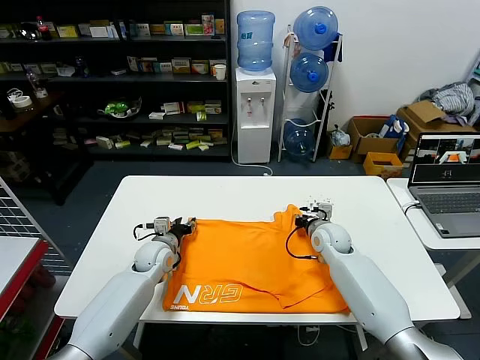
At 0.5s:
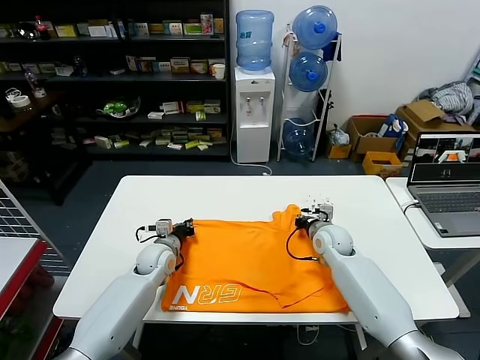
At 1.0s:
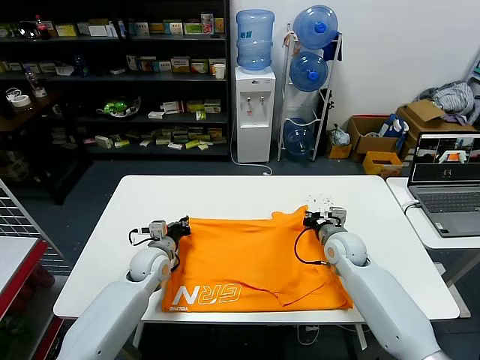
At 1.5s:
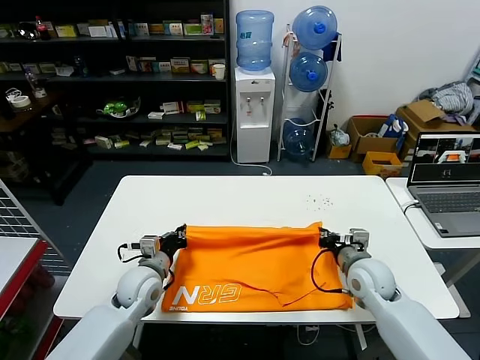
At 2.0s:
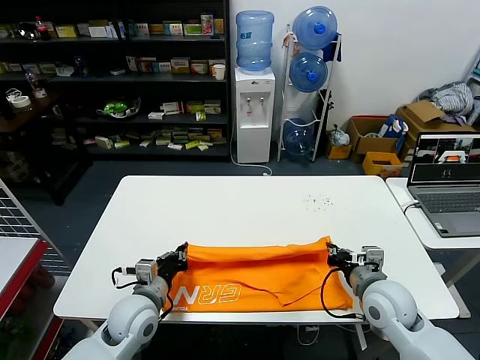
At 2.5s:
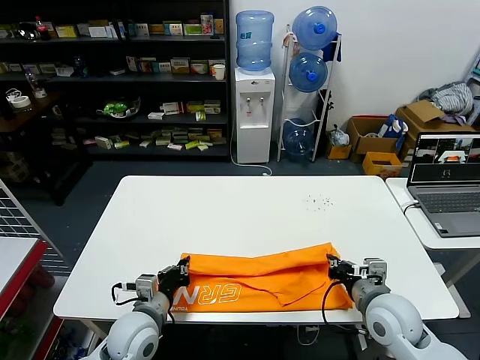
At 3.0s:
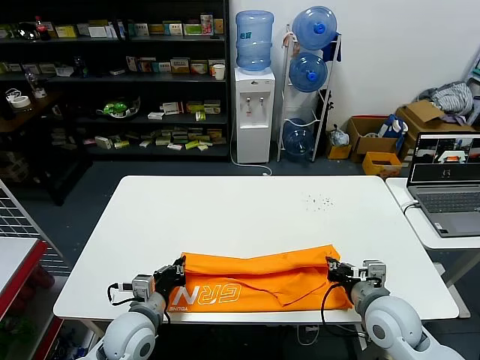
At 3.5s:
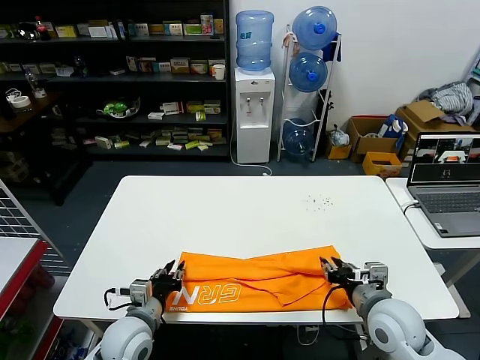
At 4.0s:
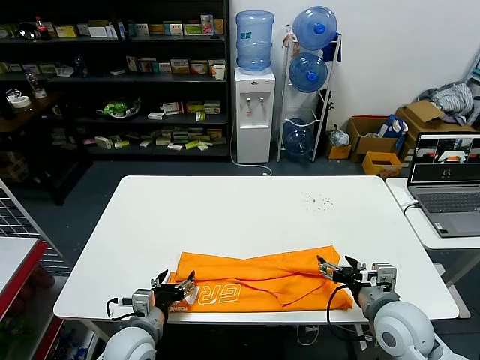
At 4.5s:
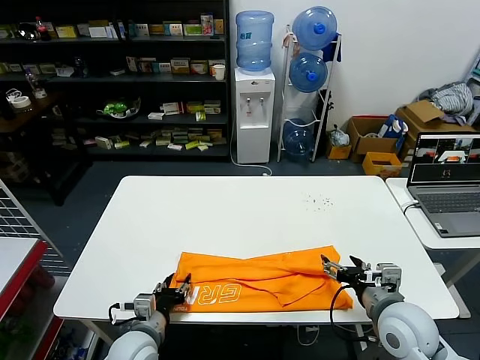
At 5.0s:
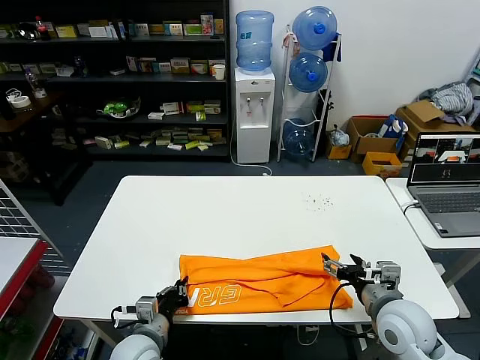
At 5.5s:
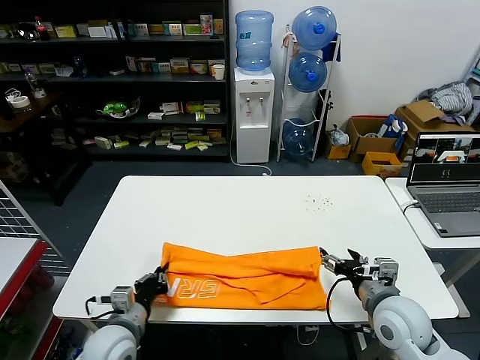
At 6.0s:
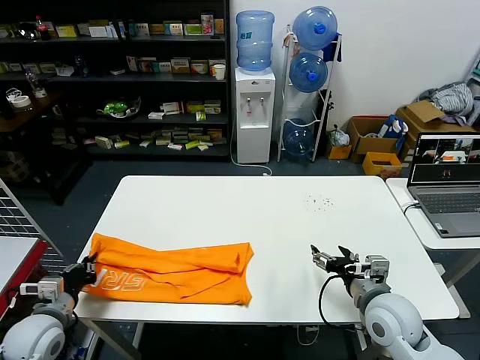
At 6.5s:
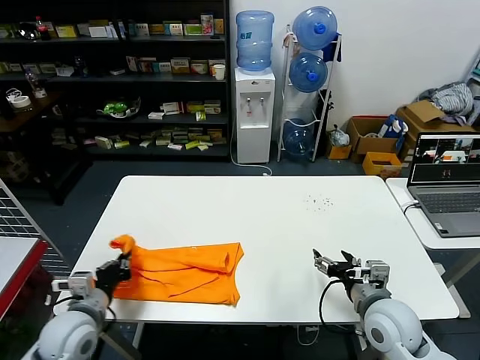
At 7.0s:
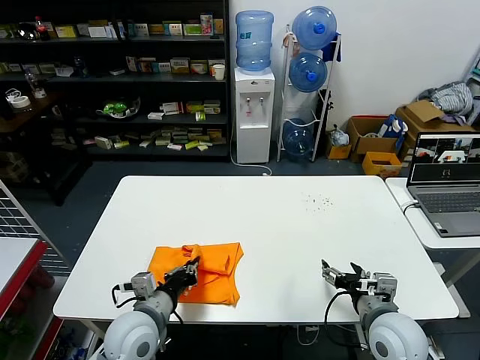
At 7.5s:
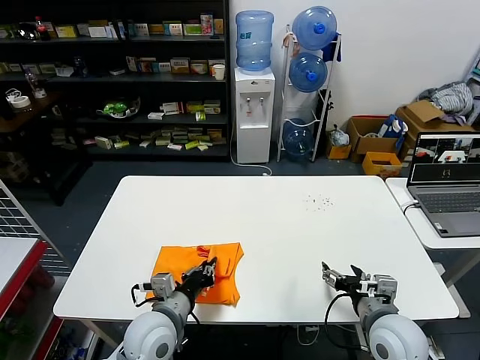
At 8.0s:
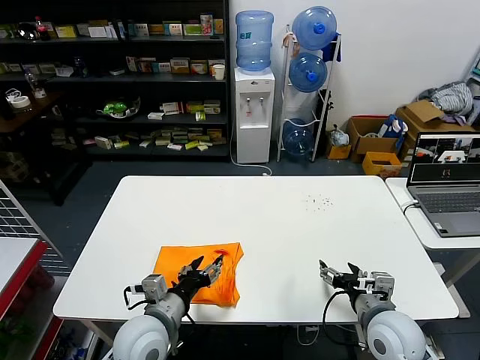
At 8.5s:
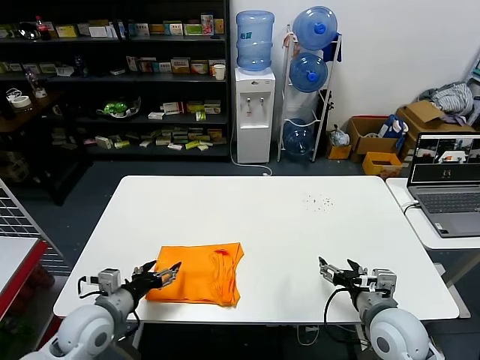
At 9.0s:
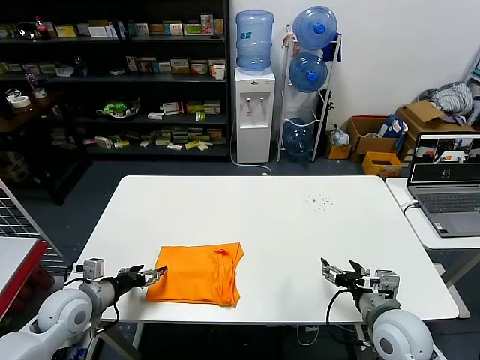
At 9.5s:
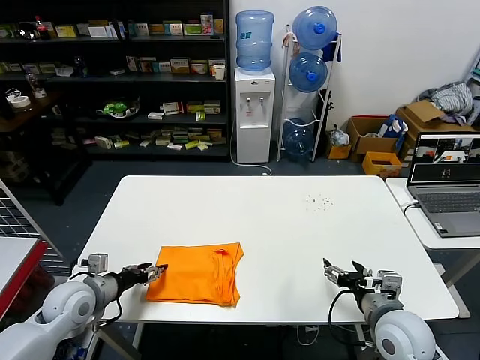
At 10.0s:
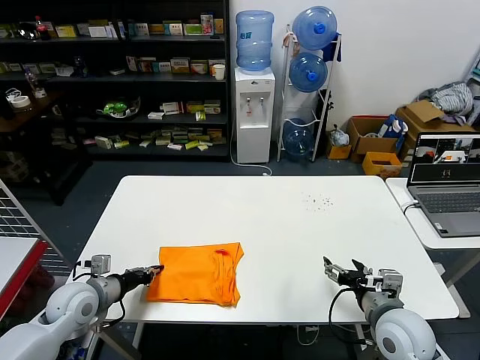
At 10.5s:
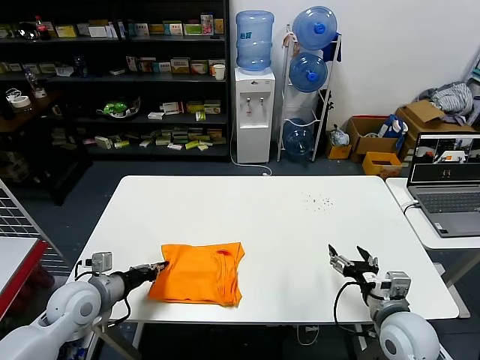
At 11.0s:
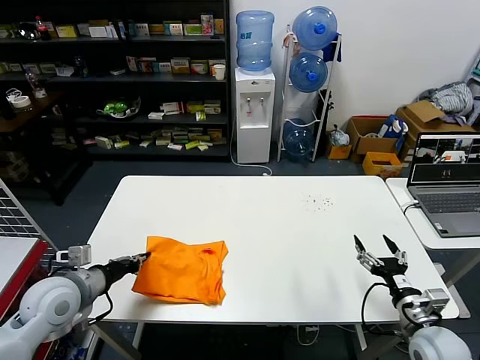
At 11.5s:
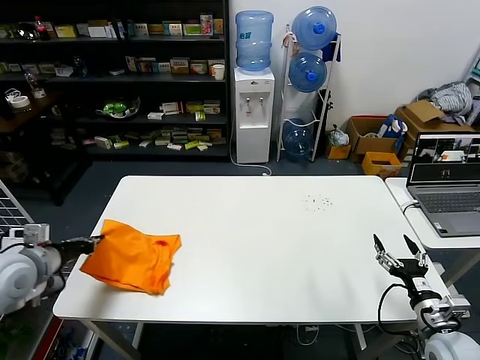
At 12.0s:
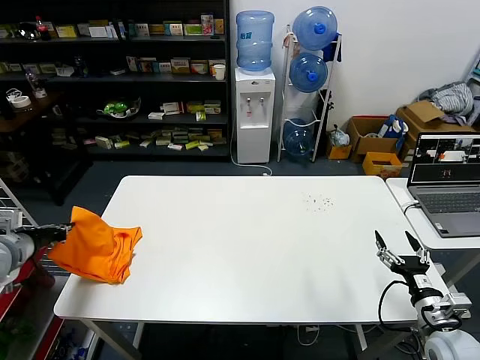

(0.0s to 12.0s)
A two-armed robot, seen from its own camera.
Task of the whole recording: fold and organize the clothes.
Step, 1.0s - 3.5s: use both grippers to drag the upper edge of the fabric backward and fold it over the lower edge.
Step, 4.0s - 5.0s: use the left gripper to clamp the left edge of the fabric.
Step, 5.5s - 7.5s: use the left gripper to drag the left edge of the fabric to the left and folds it over the right edge.
0.0s - 2.0s: The grippers both shift backward by about 20 cm. The left gripper closes up.
2.0s - 4.0s: The left gripper goes about 5 cm backward, and opens its fingers. The right gripper opens its fingers.
4.0s - 6.0s: The left gripper is displaced to the left by about 15 cm, and closes its fingers.
6.0s - 8.0s: The left gripper travels to the right by about 20 cm, and opens its fingers.
8.0s - 10.0s: The left gripper goes about 20 cm to the left, and closes its fingers.
10.0s - 12.0s: The left gripper heads upward and to the left, covering about 20 cm. Meanwhile the right gripper is displaced to the right and downward by some 15 cm.

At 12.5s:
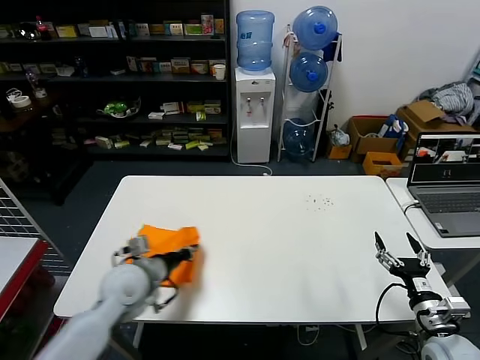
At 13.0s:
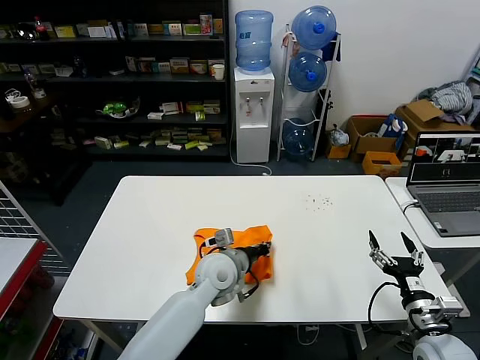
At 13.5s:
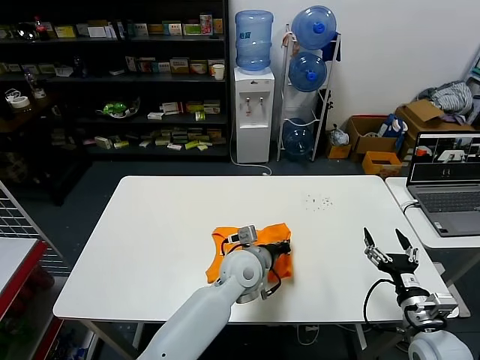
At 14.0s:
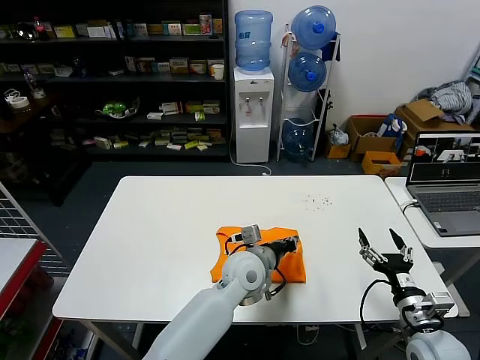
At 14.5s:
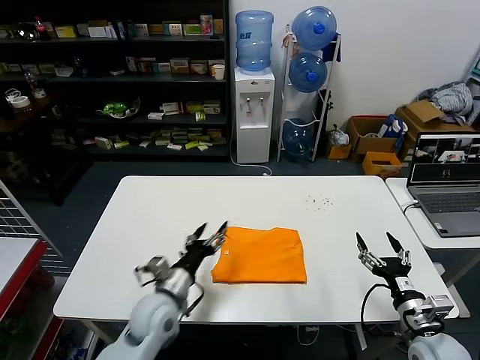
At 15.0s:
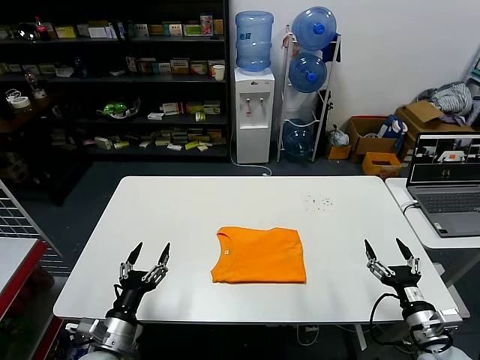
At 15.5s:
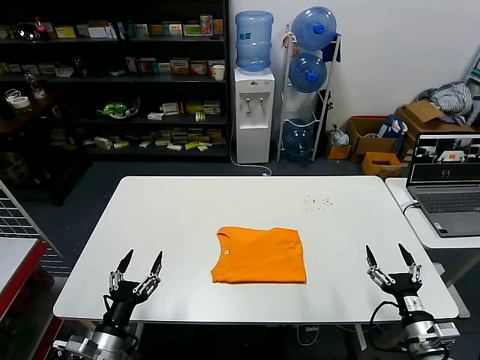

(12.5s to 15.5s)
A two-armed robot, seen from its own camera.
Task of the whole recording: fold and organize the clothes.
12.5s - 14.0s: The left gripper shifts some 30 cm to the right.
14.0s - 15.5s: The right gripper changes place by about 5 cm; the left gripper goes roughly 35 cm to the left and backward, and opens.

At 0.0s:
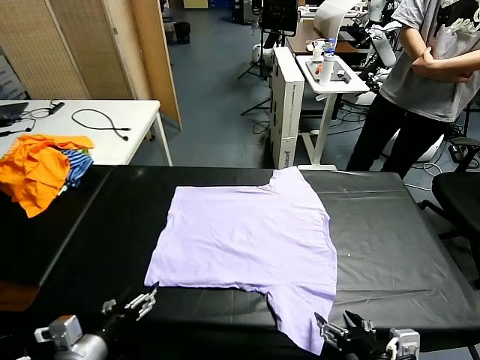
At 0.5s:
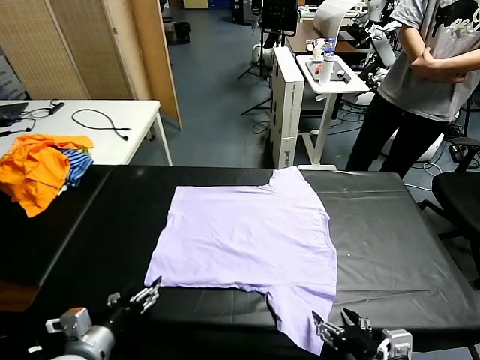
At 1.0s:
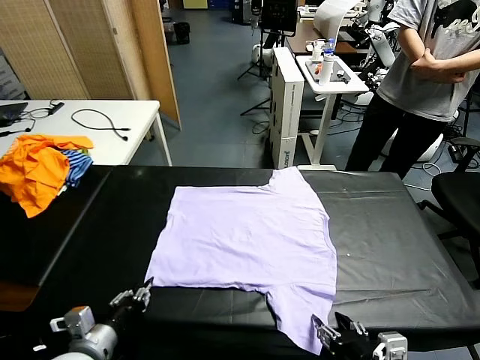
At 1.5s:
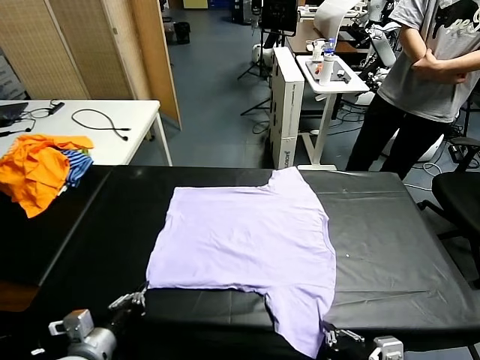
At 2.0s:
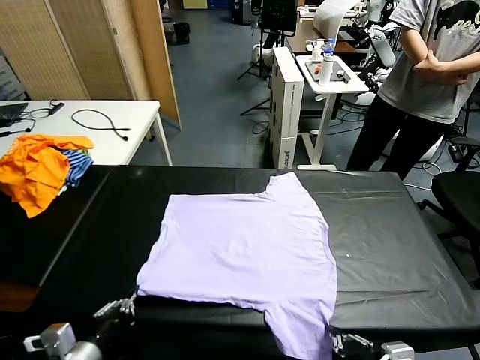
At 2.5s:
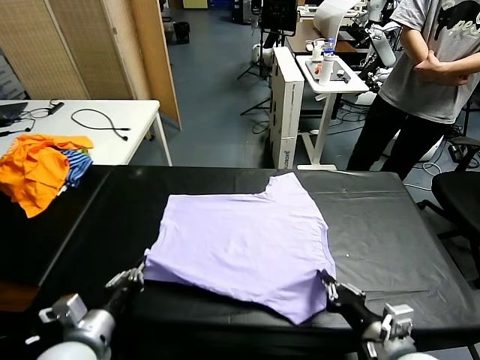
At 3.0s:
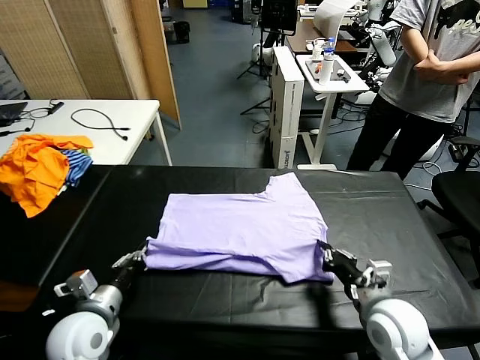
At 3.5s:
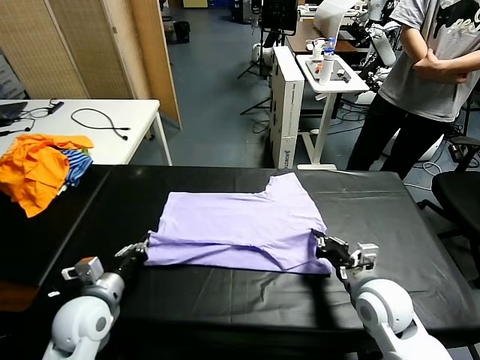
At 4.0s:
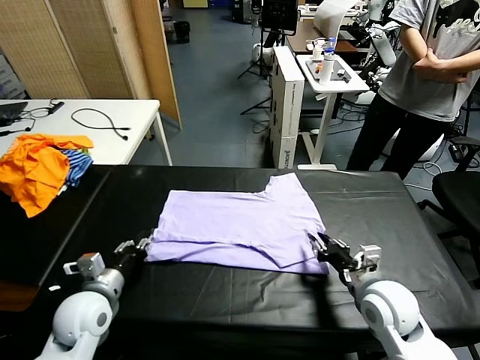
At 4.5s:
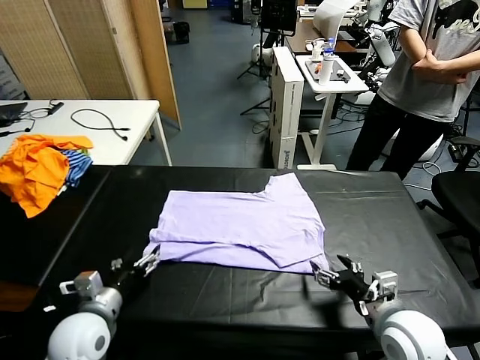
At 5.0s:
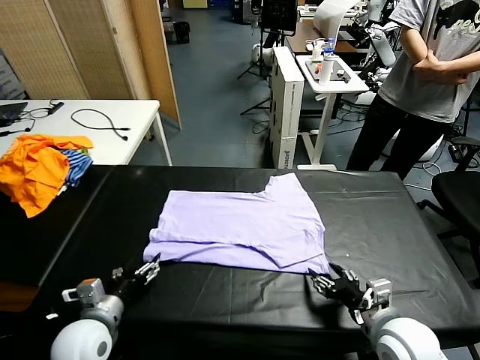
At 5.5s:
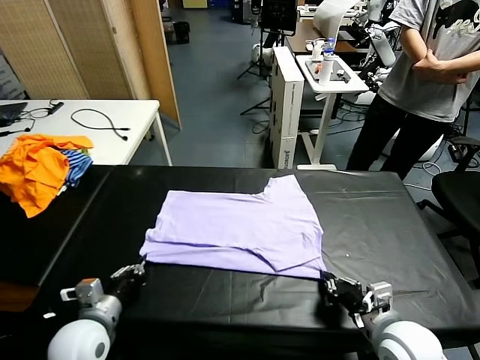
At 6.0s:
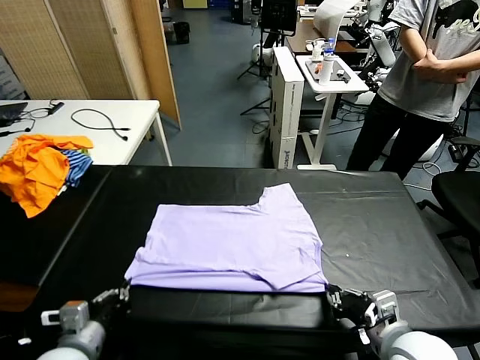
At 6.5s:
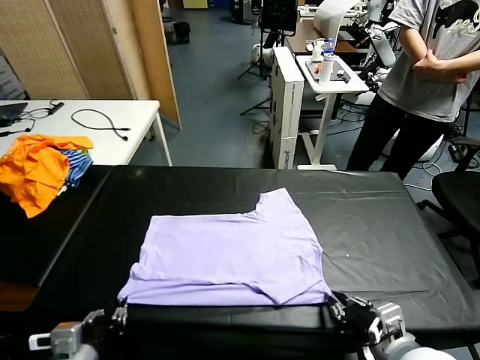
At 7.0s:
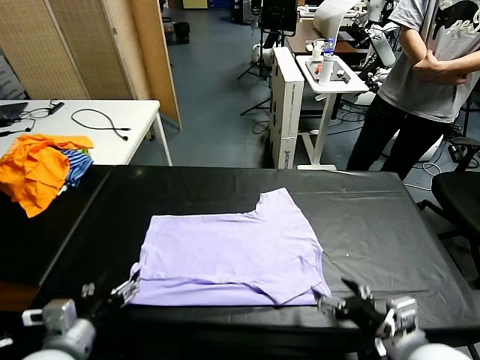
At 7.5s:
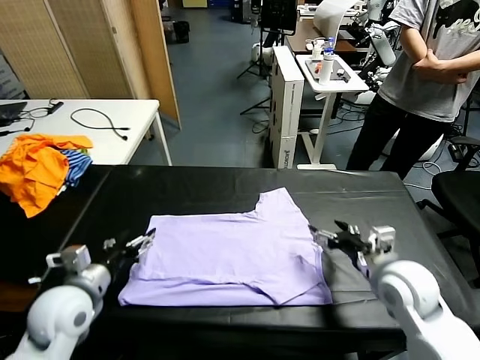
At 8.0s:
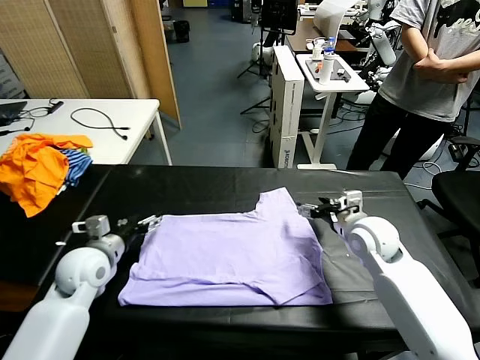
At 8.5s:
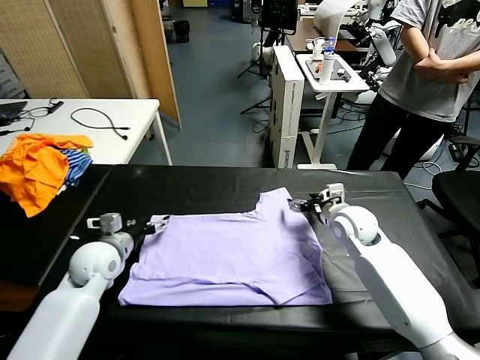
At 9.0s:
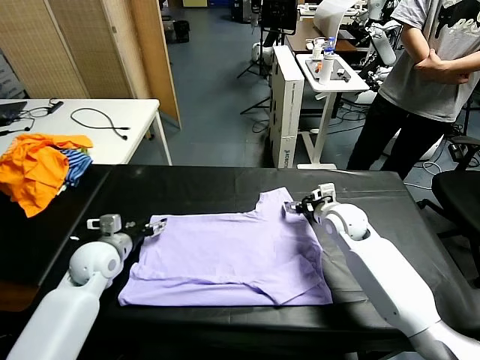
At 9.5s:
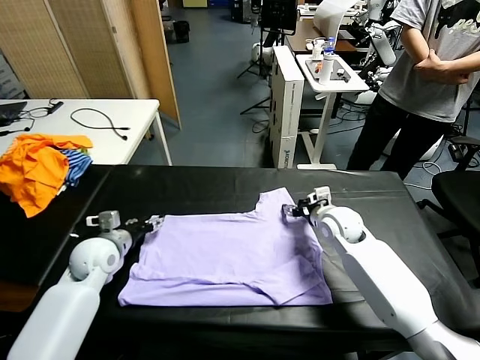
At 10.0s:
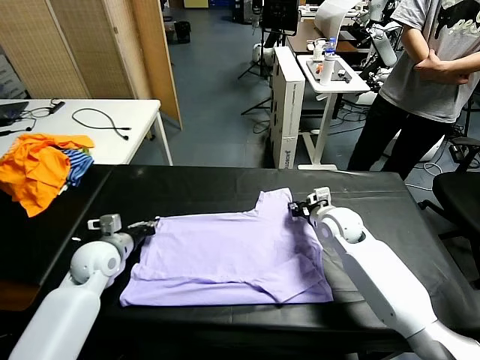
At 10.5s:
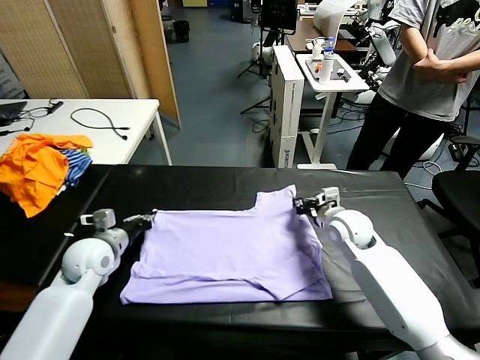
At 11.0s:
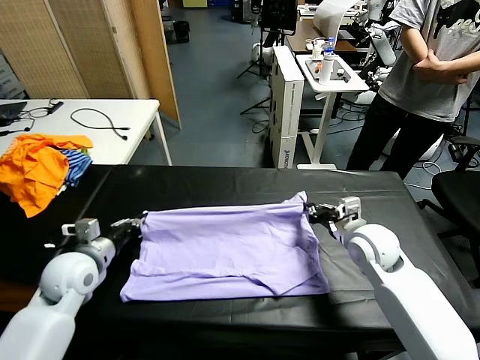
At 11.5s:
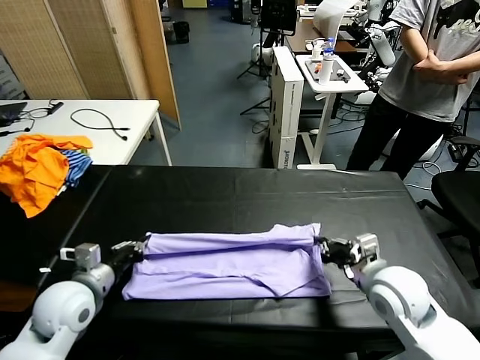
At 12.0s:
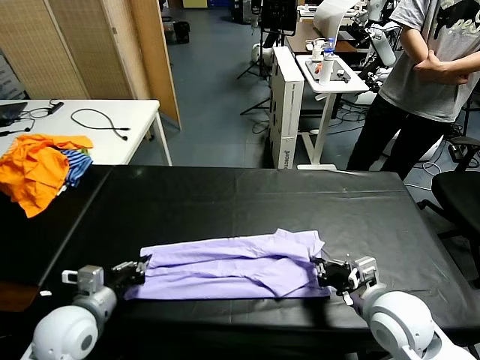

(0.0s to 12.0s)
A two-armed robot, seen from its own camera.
Task of the whole recording: fold and organize the clothes.
Step, 0.0s - 1.5s: use both grippers simultaneously to clamp the lower edge of the clothing fabric.
Step, 2.0s - 4.0s: use both grippers to drag the lower edge of the fabric forward and fold it over the upper edge.
Step, 4.5s - 6.5s: Drag the clothes downward with both gripper.
Step, 7.0s - 10.0s: use both grippers simultaneously to clamp the upper edge of the clothing fabric.
2.0s - 4.0s: The two grippers go about 10 cm forward. The right gripper opens its fingers. The left gripper opens its fingers.
4.0s - 6.0s: The right gripper travels backward by roughly 5 cm, and closes up. The left gripper shifts about 10 cm backward, and closes.
6.0s - 8.0s: The grippers both shift forward by some 25 cm. The right gripper opens up; the left gripper opens.
8.0s - 10.0s: The right gripper changes place by roughly 5 cm, and closes up. The left gripper closes its fingers.
10.0s - 12.0s: Both grippers move backward, approximately 20 cm.
